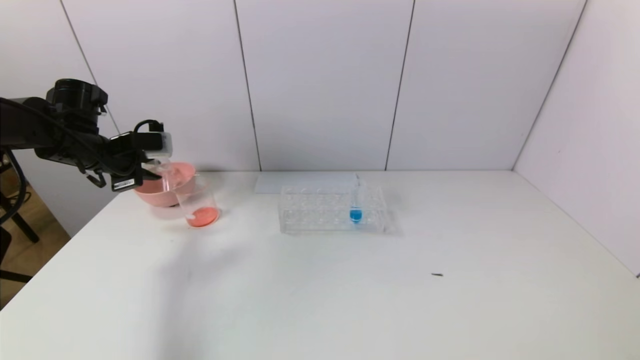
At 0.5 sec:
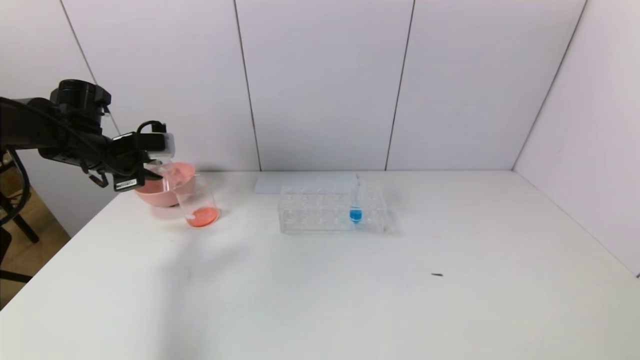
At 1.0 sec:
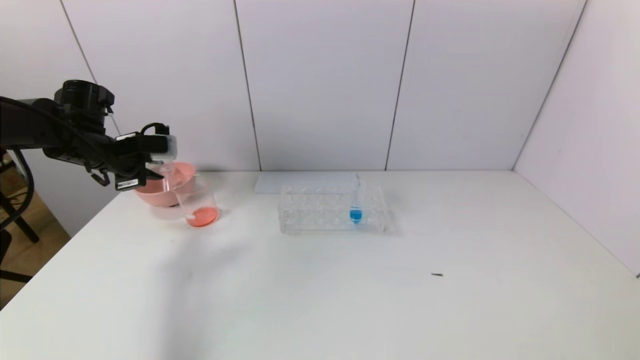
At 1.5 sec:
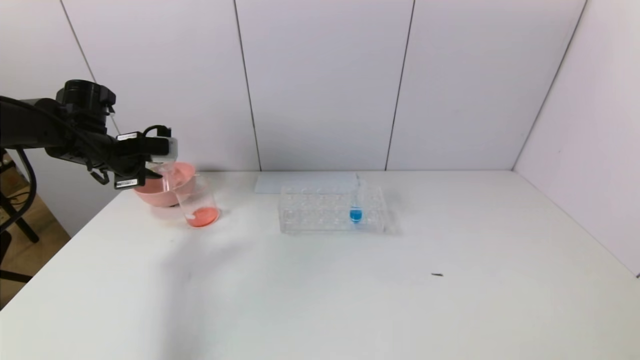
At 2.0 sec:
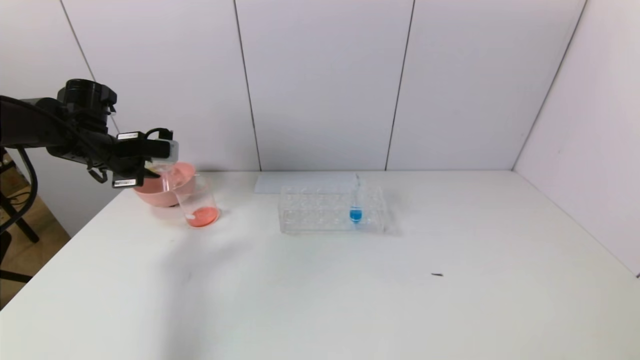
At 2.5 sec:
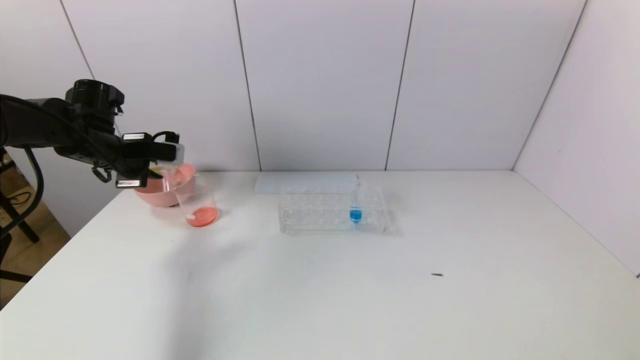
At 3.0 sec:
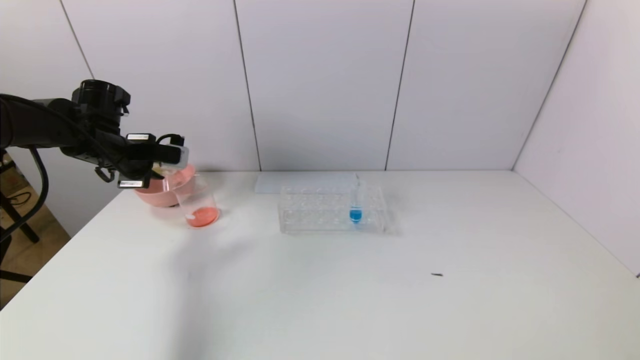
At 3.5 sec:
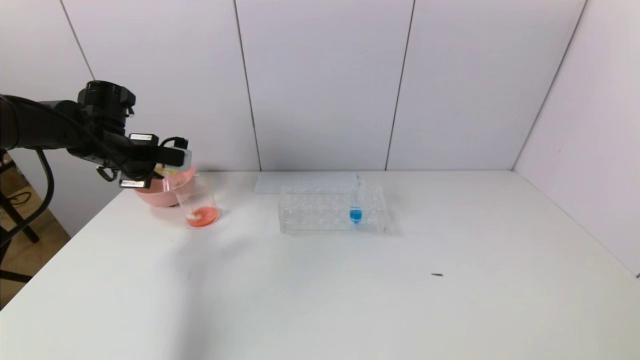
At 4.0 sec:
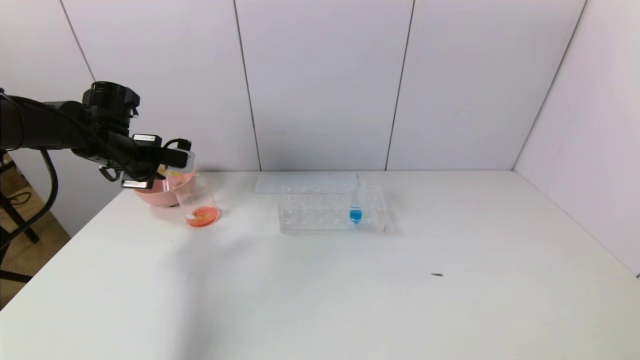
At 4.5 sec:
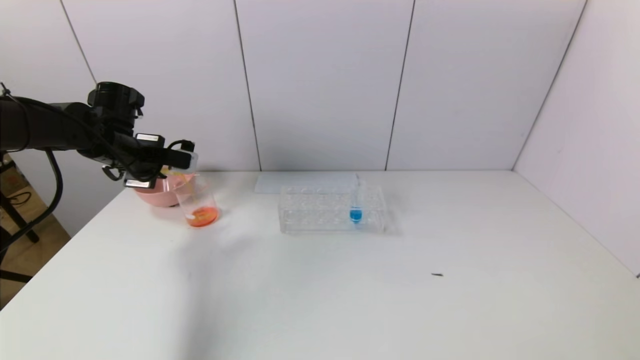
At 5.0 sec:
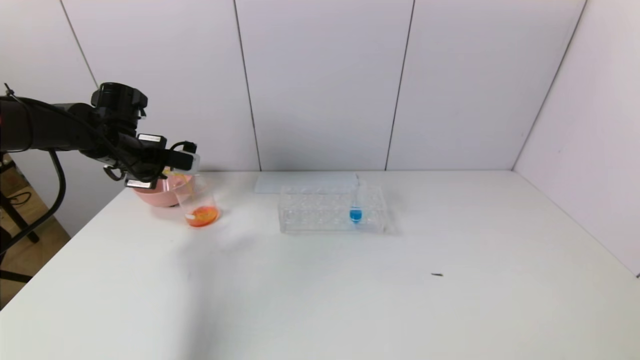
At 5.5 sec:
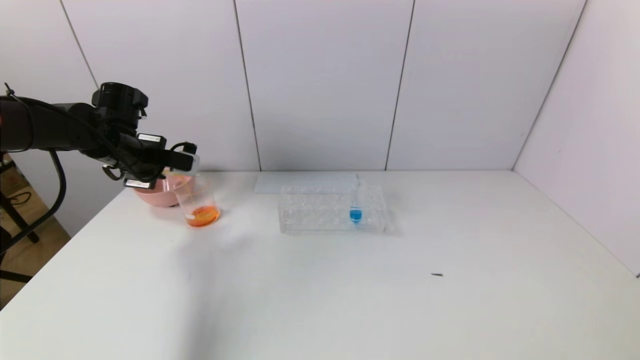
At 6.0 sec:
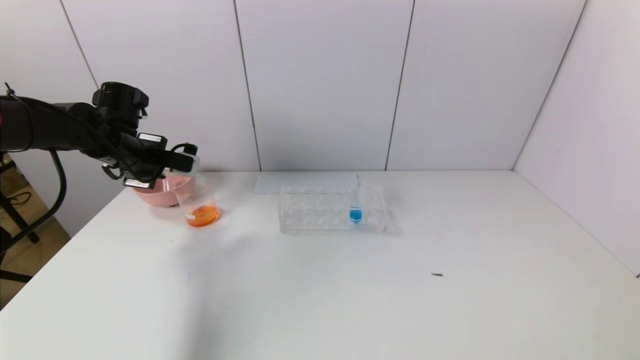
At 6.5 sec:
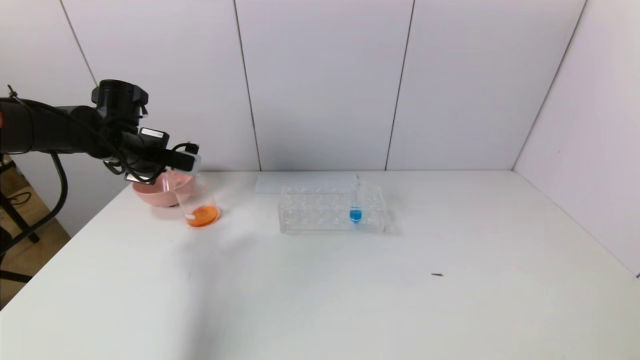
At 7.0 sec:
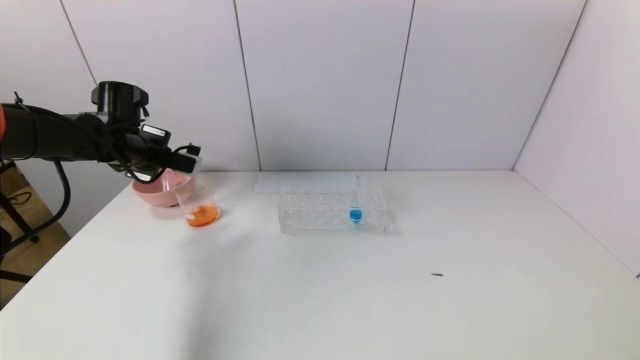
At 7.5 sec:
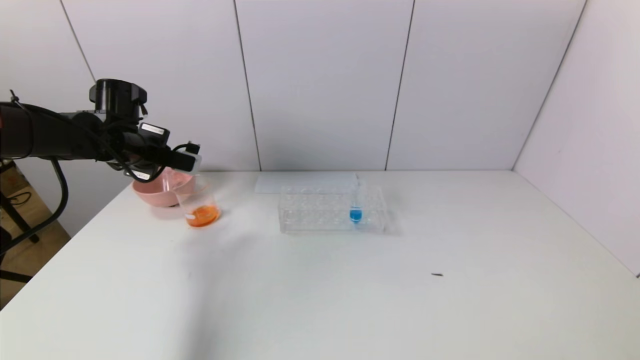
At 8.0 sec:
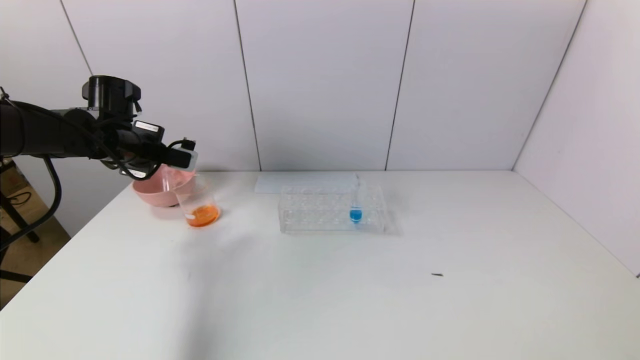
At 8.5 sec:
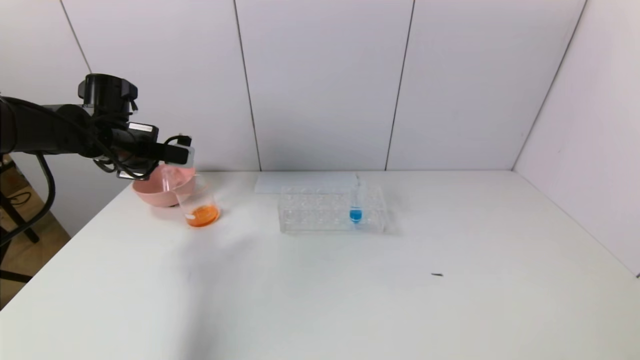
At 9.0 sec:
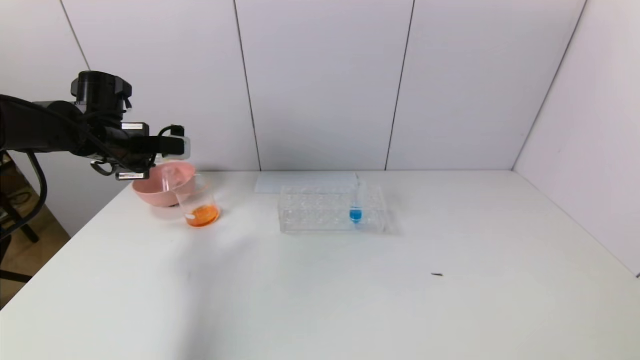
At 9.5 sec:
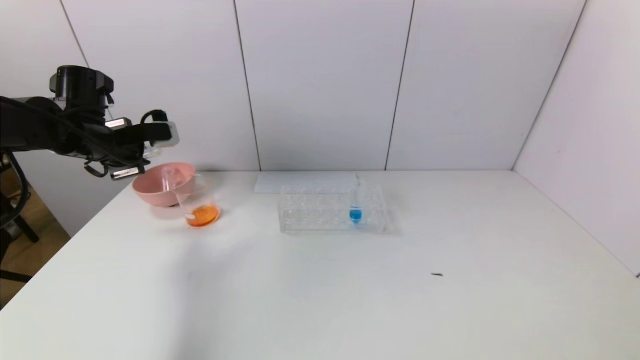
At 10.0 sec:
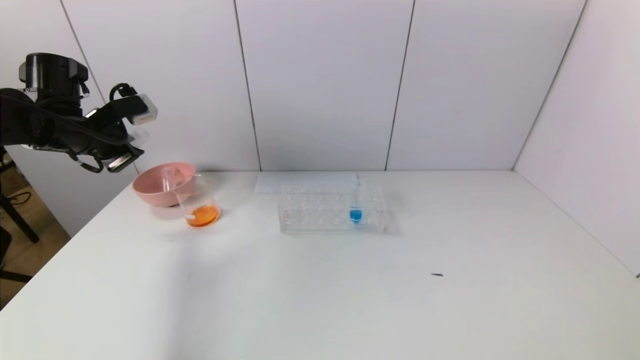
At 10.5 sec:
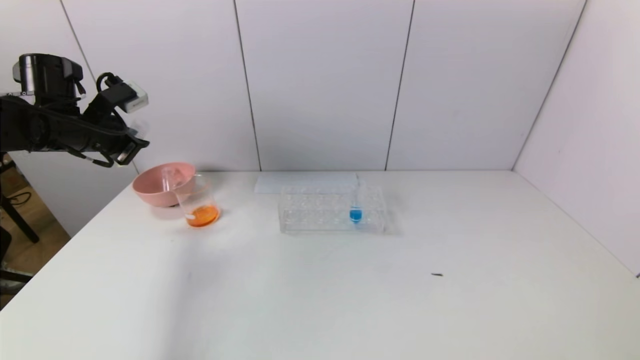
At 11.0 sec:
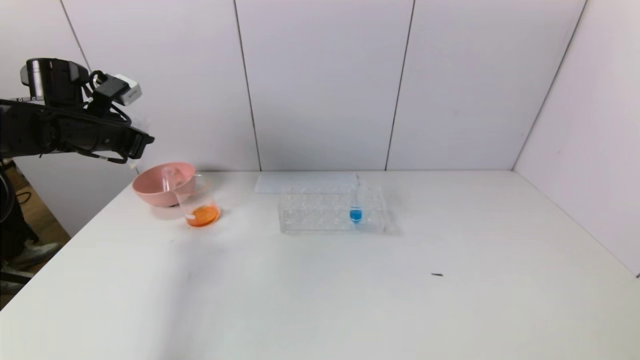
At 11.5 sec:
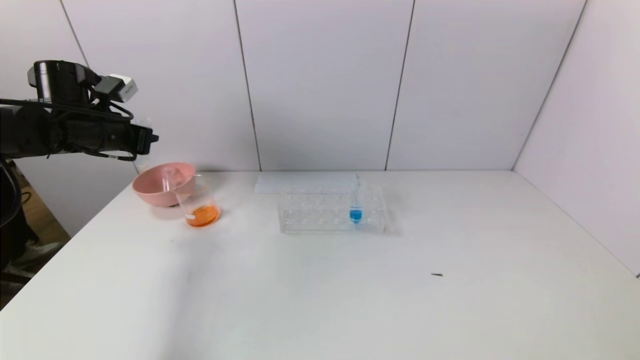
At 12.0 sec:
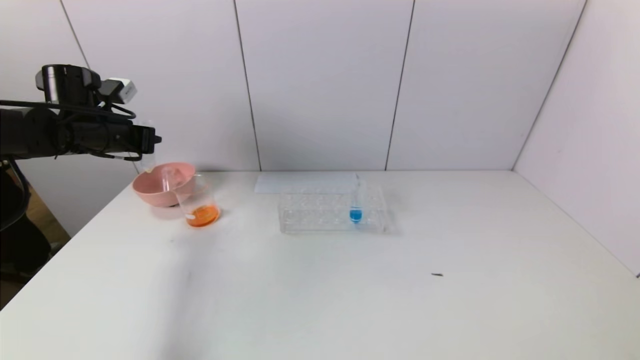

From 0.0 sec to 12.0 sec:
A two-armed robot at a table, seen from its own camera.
Task of the whole recording: pick up the test tube with yellow pigment and the test tube with red pigment by grippers and pour them into the beaker.
Step, from 0.0 sec to 7.5 sec: Pour the yellow reagent into the graduated cylinder with the left gripper.
From 0.0 sec to 2.0 sec: There are only small adjustments of the grippers.
From 2.0 sec to 6.0 sec: The grippers make only small movements.
From 6.0 sec to 8.0 sec: There are only small adjustments of the grippers.
From 8.0 sec to 10.0 sec: The left gripper ends up roughly 5 cm from where it was.

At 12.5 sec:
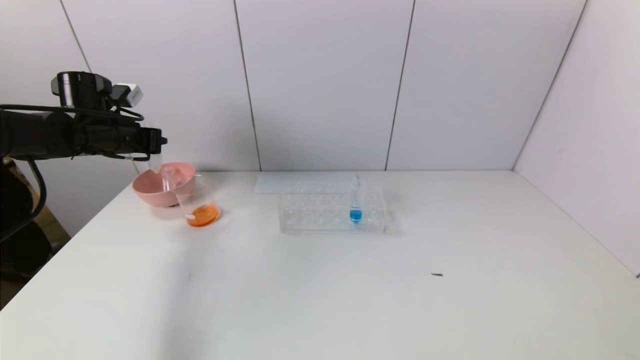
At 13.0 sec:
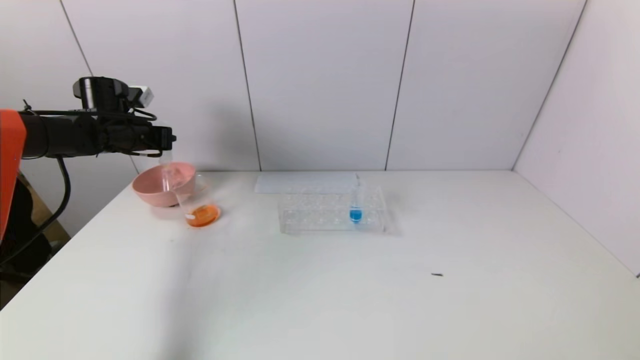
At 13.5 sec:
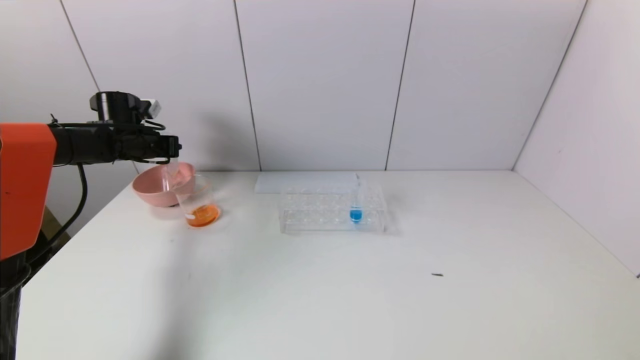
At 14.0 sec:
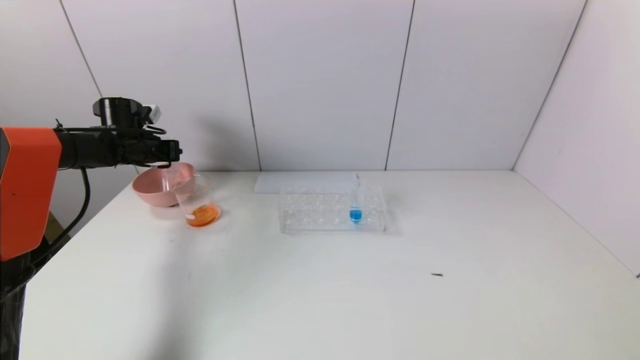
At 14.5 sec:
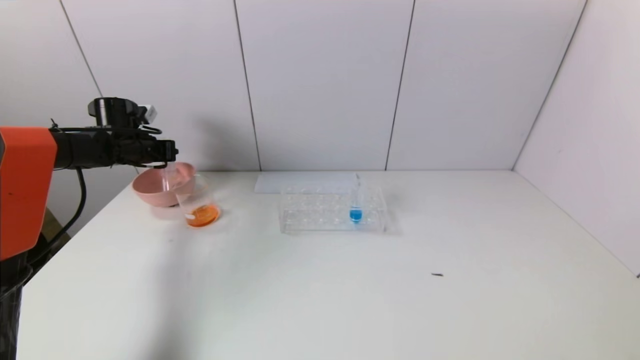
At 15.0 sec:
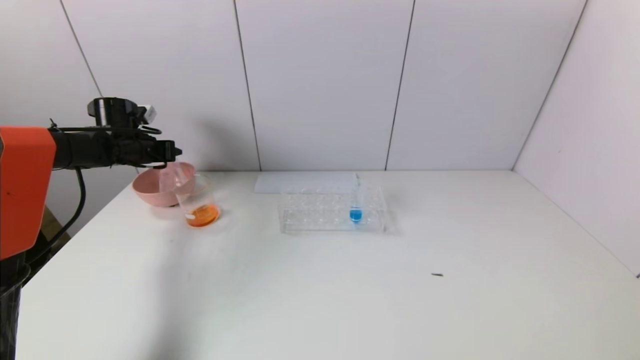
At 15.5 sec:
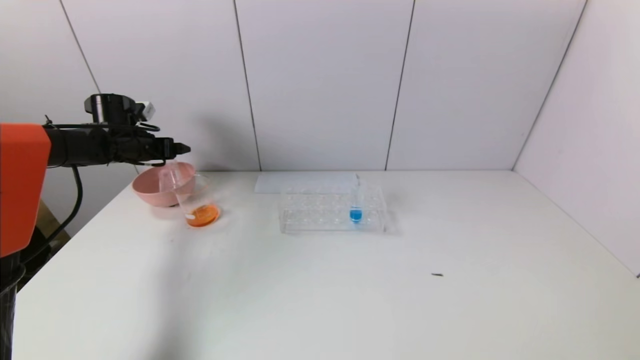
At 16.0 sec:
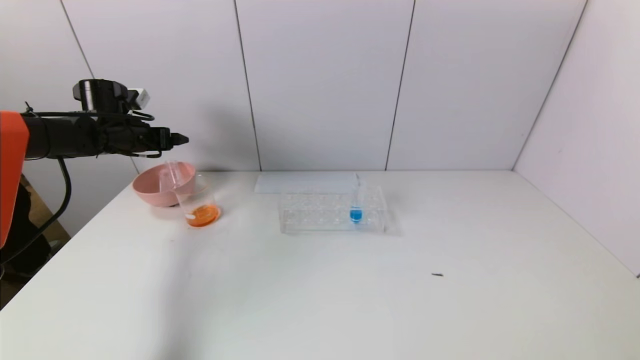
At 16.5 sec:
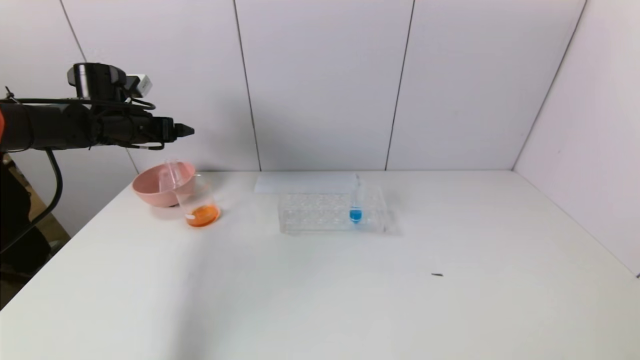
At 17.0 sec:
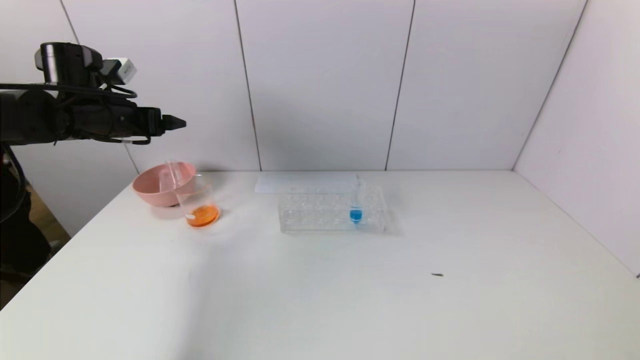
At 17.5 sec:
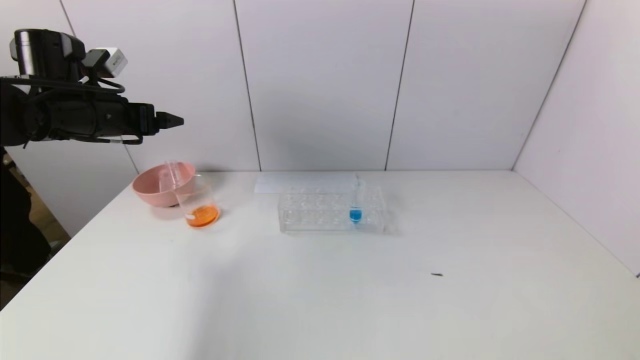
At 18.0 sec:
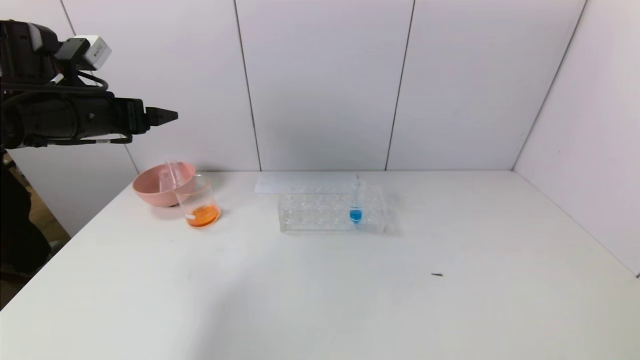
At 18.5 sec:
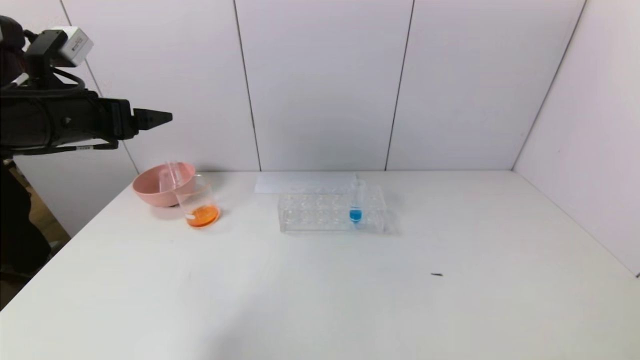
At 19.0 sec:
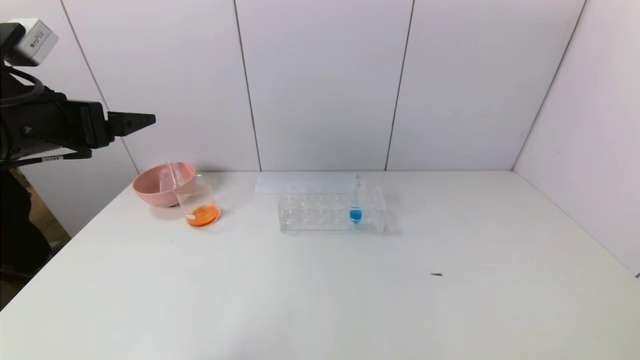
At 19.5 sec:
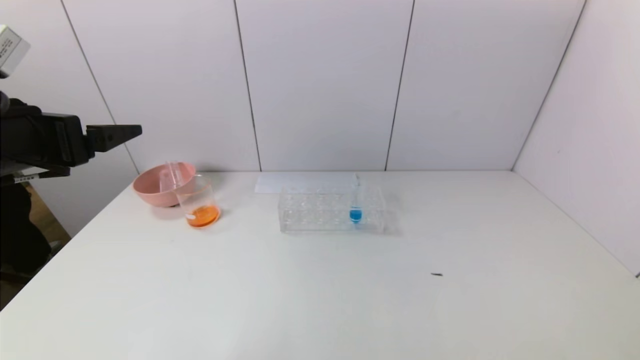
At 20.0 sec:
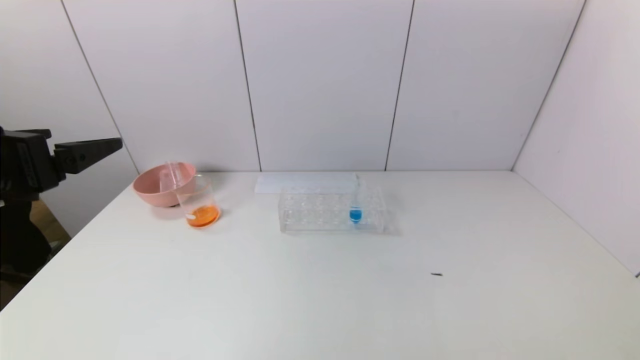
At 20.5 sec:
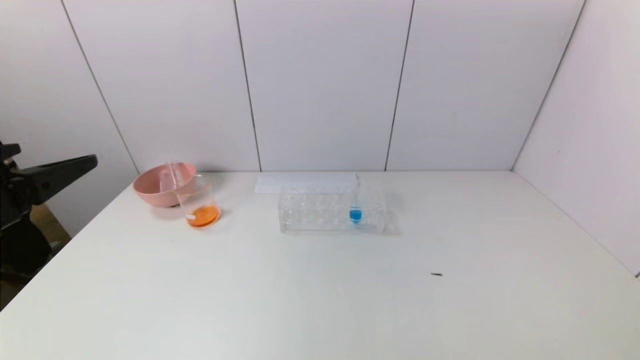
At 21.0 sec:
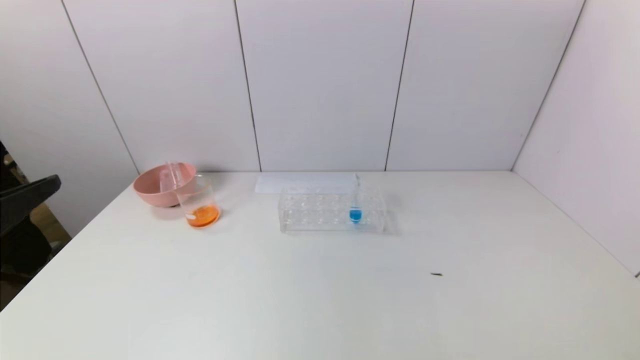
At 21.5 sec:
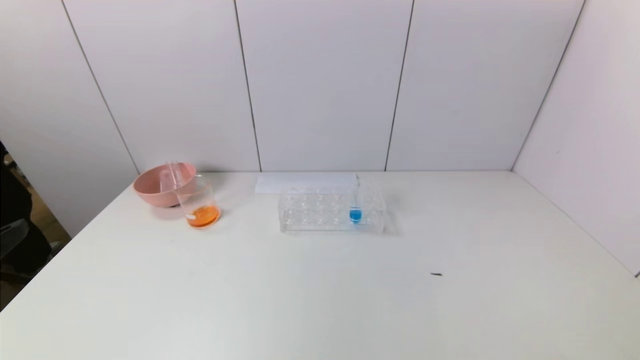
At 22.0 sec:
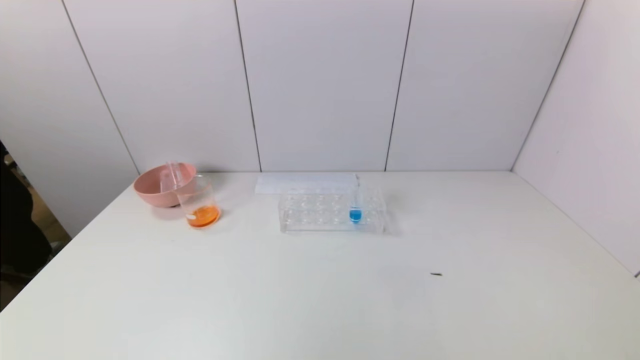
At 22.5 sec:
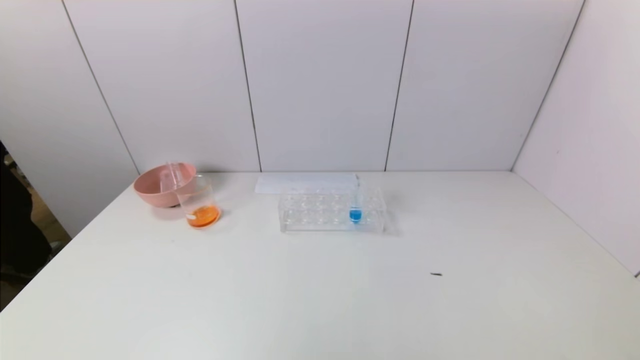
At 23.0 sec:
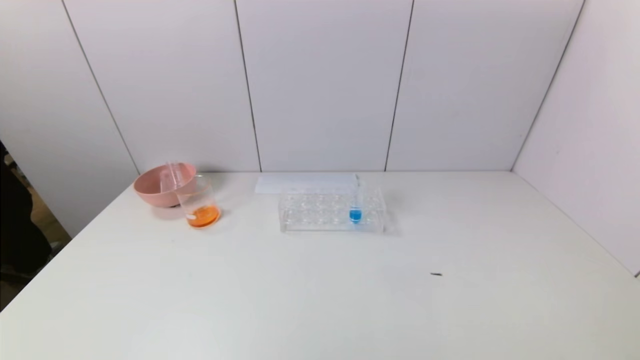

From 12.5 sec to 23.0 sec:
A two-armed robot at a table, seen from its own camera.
Task of the whole recording: pick up the test tube with yellow pigment and the test tube with red pigment by grippers and pour them into the beaker.
Step, from 12.5 sec to 15.0 sec: Place the test tube into the pink bowl with the left gripper.
From 12.5 sec to 14.5 sec: The left gripper heads forward and downward, covering approximately 10 cm.
From 14.5 sec to 16.5 sec: The left gripper moves upward and backward, roughly 10 cm, and opens up.
From 16.5 sec to 19.0 sec: The left gripper is displaced backward by approximately 20 cm.
From 19.0 sec to 21.0 sec: The left gripper moves backward, roughly 15 cm.
